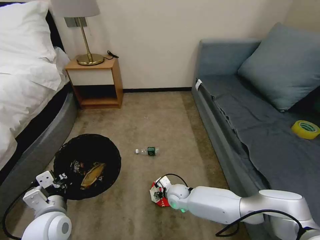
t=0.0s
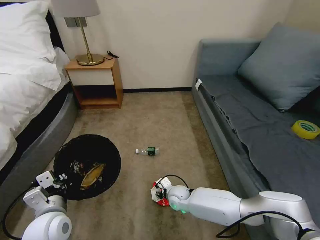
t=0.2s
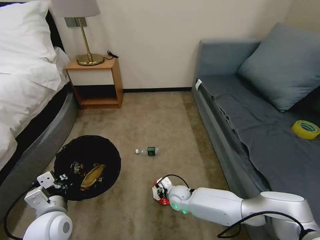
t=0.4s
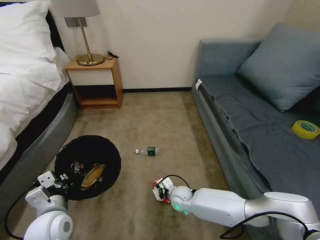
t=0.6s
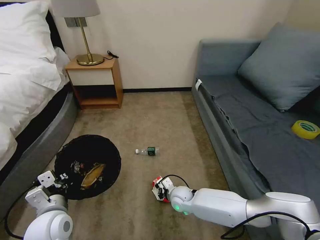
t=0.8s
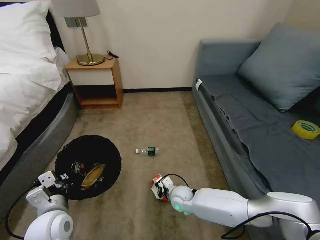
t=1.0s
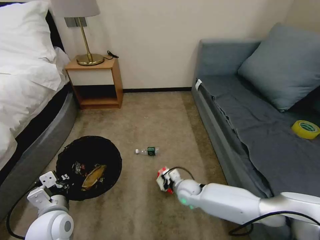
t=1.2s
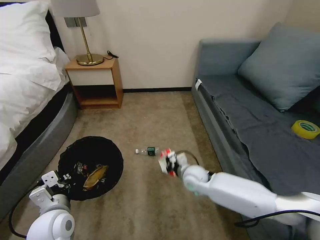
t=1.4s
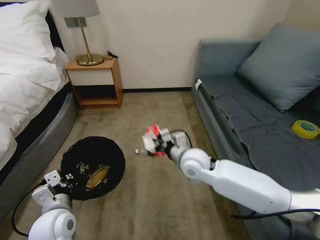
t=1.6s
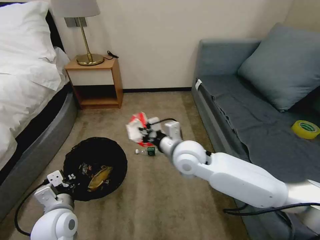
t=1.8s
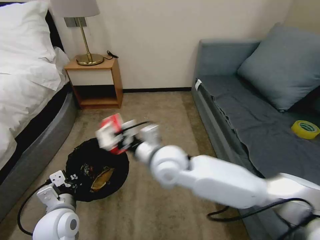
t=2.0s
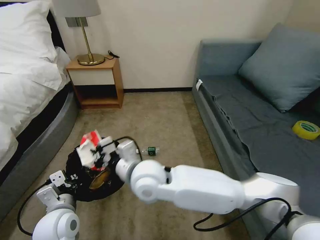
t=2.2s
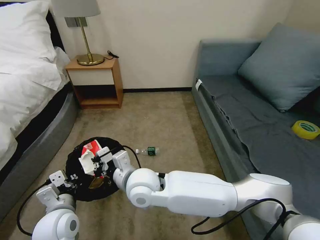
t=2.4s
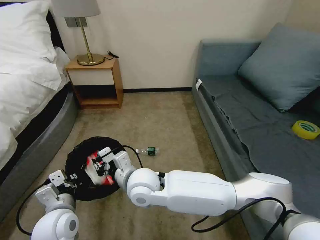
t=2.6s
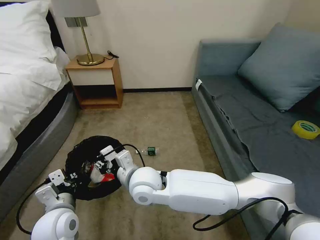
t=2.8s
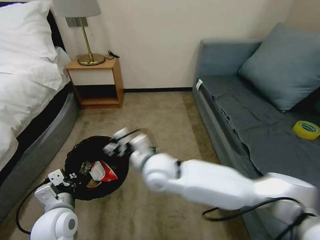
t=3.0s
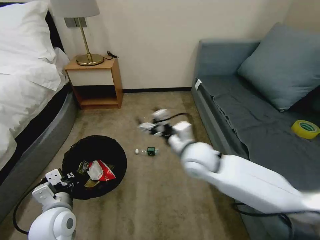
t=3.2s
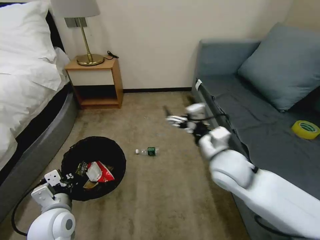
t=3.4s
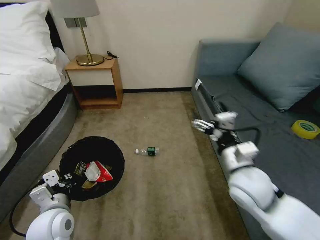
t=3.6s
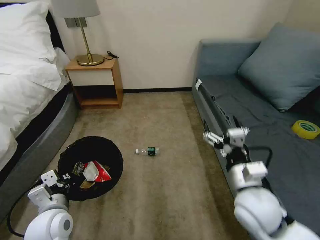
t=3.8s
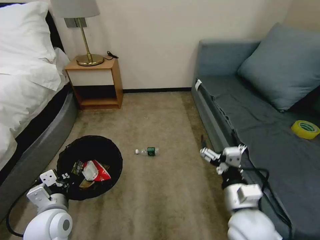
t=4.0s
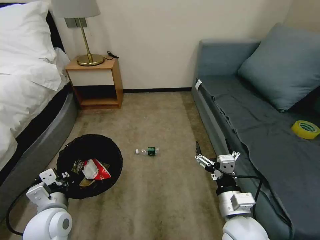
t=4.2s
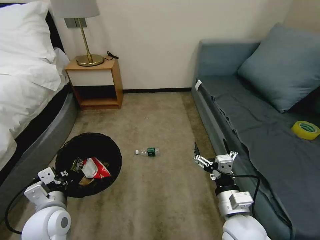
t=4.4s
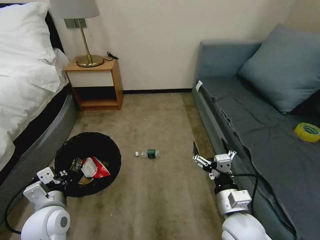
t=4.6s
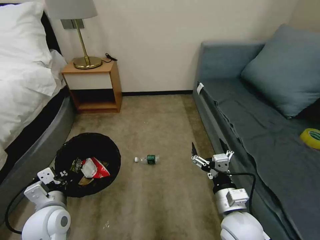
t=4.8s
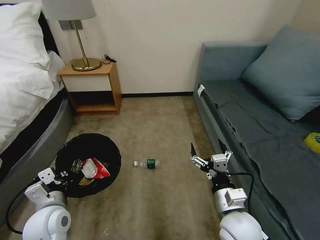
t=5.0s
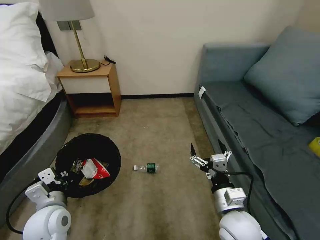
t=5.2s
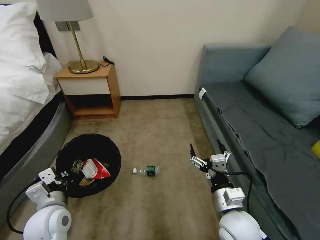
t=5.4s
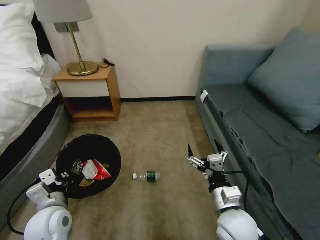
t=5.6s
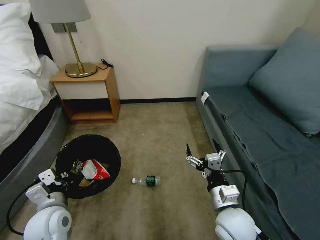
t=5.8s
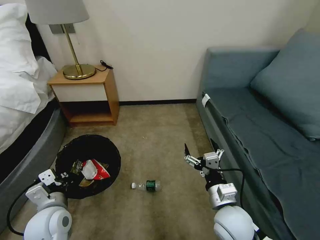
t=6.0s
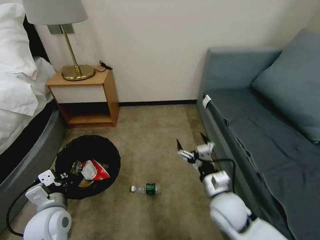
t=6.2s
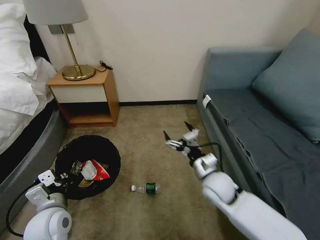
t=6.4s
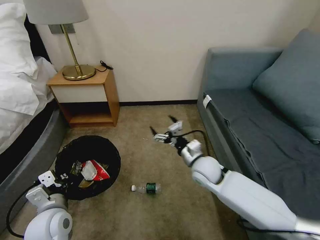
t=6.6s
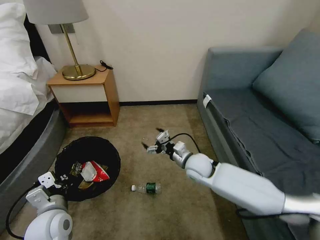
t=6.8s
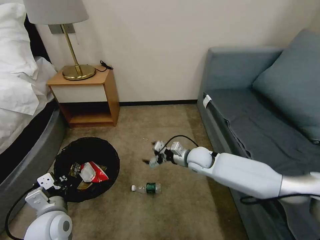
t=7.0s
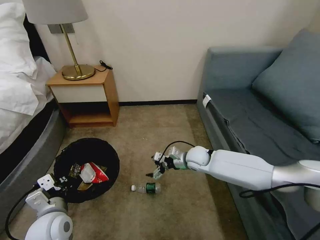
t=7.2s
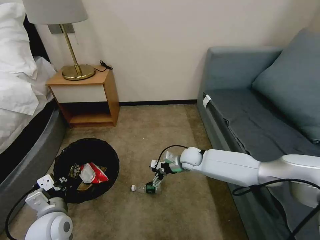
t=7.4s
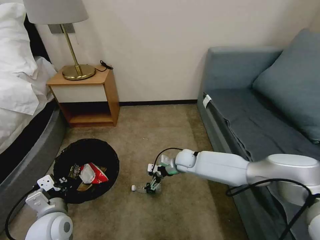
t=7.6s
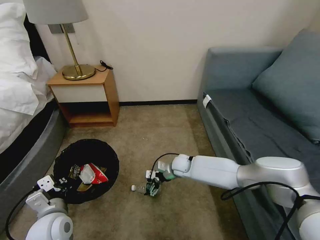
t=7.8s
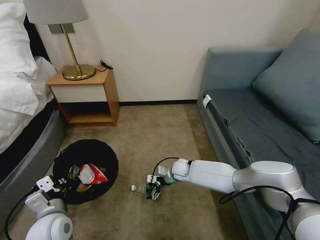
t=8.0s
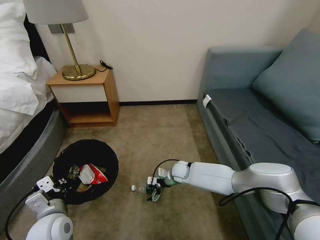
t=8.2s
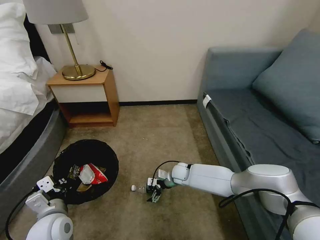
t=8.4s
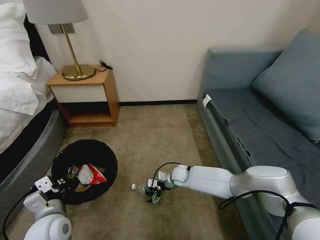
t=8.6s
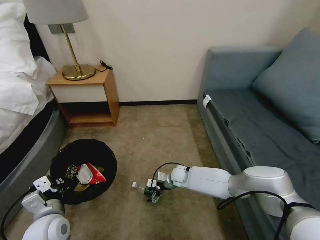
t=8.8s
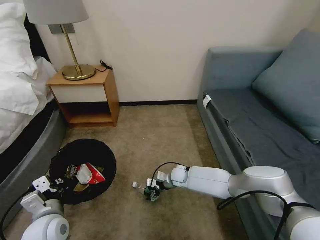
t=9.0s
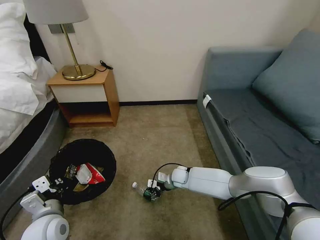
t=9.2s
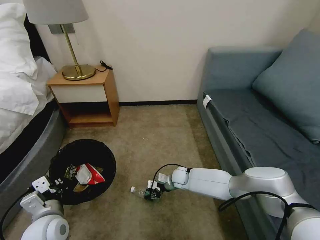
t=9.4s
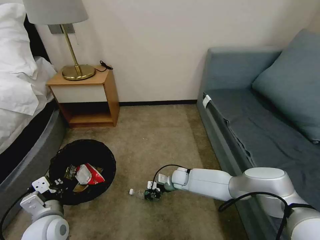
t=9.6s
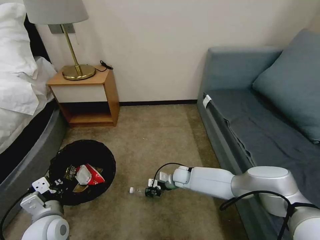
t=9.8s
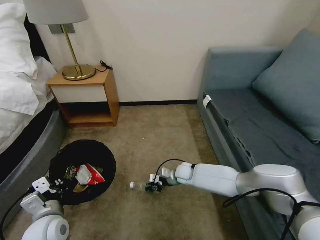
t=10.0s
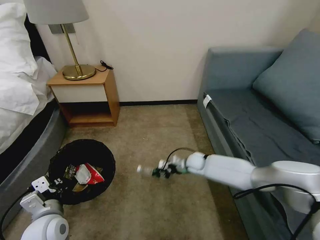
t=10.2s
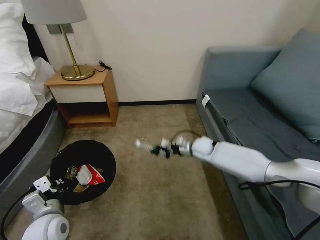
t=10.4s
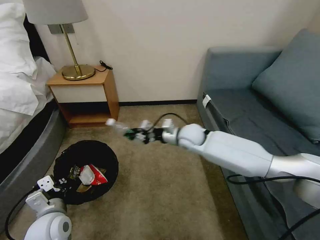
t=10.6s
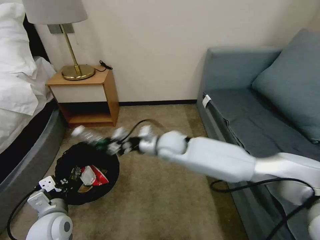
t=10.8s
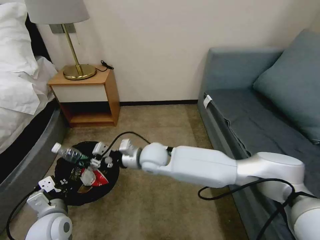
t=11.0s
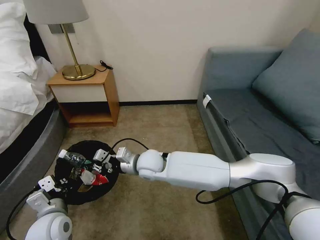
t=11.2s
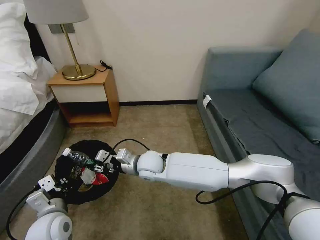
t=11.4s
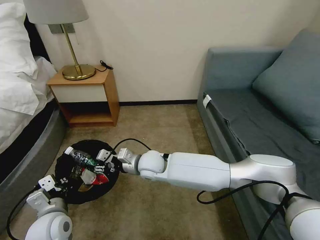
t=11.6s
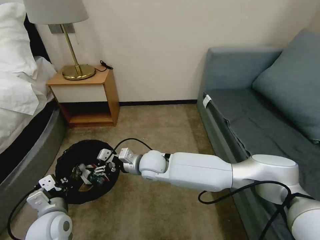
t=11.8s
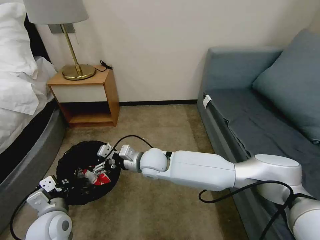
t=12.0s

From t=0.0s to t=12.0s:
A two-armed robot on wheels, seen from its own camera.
Task of the whole recording: Pick up the trash bin, then pick up the garbage on the floor and place it into the trash bin.
From t=0.0s to t=1.6s: The right gripper travels upward by approximately 25 cm, and closes up.
From t=1.6s to t=3.0s: The right gripper heads to the left and backward, covering some 15 cm, and opens its fingers.
From t=3.0s to t=4.4s: The right gripper travels to the right and backward by approximately 25 cm, and opens up.
From t=6.0s to t=7.6s: The right gripper goes about 25 cm forward.
From t=7.6s to t=9.0s: The right gripper goes some 10 cm downward.
From t=9.0s to t=10.4s: The right gripper travels upward, to the right and forward by some 15 cm, and closes its fingers.
From t=10.4s to t=12.0s: The right gripper is displaced to the left and backward by some 25 cm, and opens its fingers.

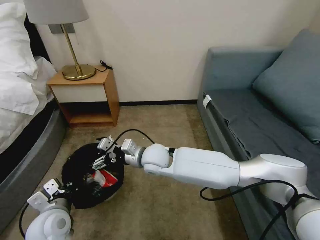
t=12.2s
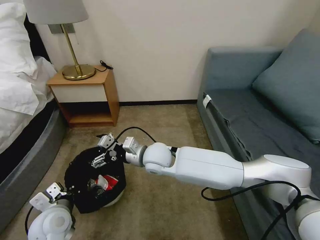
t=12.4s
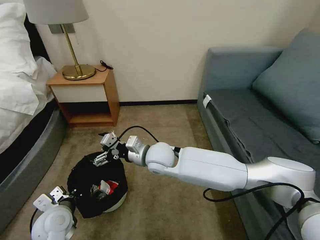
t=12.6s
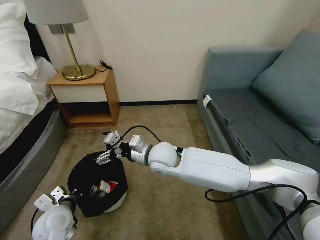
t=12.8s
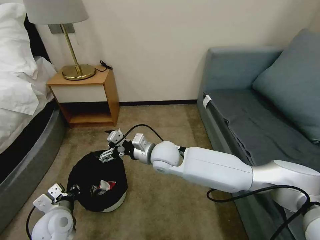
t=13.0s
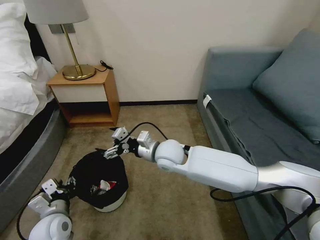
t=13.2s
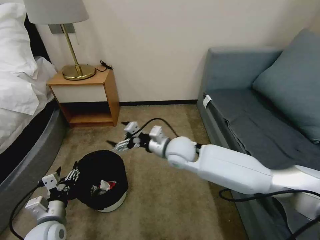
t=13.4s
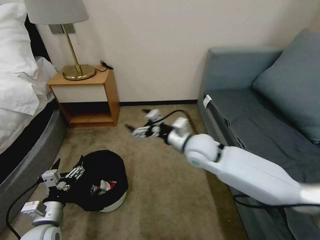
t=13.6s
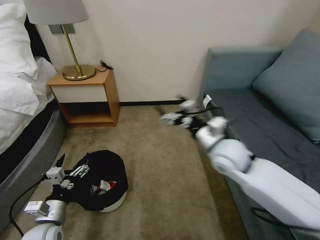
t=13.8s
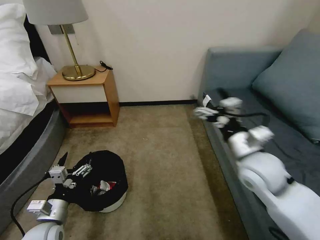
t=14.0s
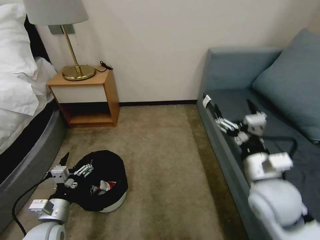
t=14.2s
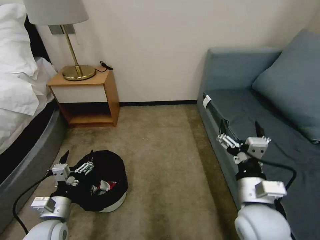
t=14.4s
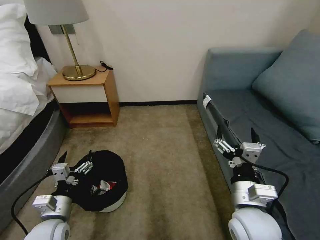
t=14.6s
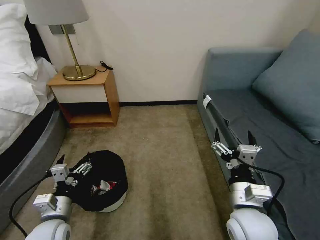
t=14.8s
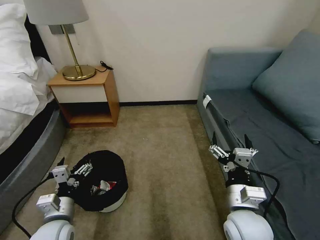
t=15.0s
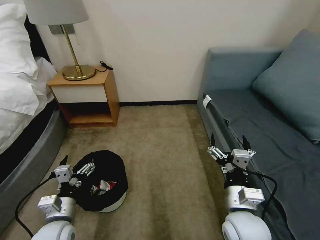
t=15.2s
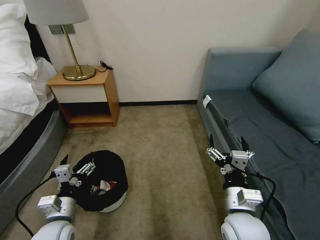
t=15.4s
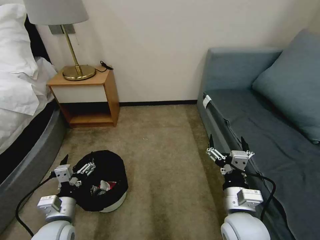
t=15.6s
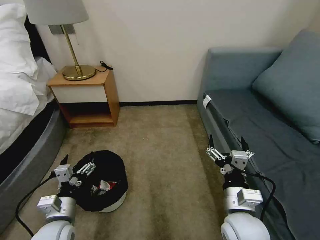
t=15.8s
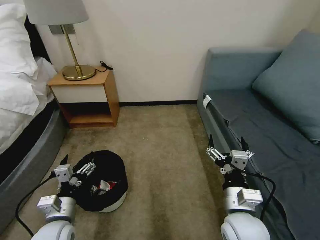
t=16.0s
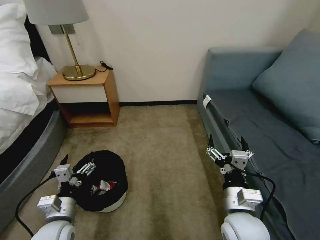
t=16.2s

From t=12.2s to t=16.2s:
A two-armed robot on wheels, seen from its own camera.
Task of the whole recording: Pick up the trash bin, then pick up the garbage on the floor and place it into the trash bin.
From t=12.2s to t=13.6s: The left gripper ends up some 5 cm from where it was, and opens. Meanwhile the right gripper shifts approximately 15 cm to the right.
From t=13.6s to t=14.8s: The right gripper shifts some 20 cm backward and to the right.
From t=14.8s to t=16.2s: The grippers move only a little.

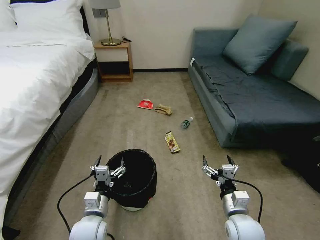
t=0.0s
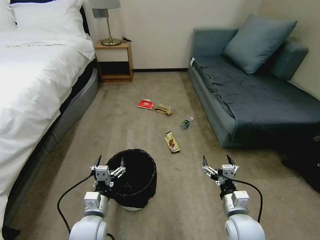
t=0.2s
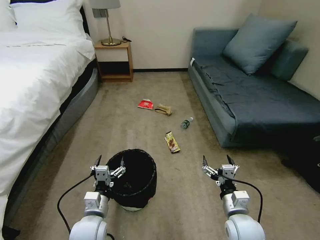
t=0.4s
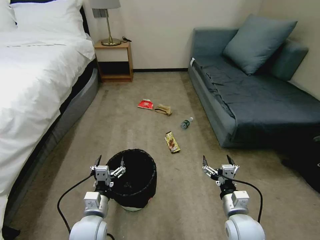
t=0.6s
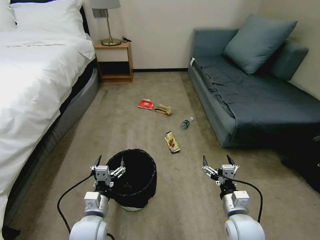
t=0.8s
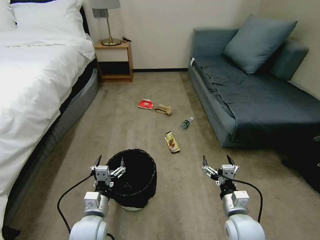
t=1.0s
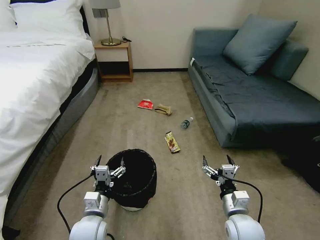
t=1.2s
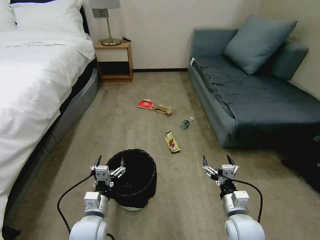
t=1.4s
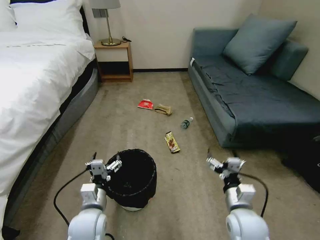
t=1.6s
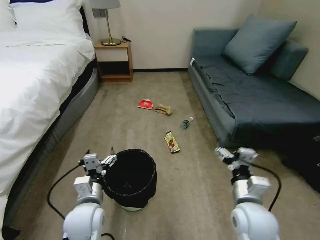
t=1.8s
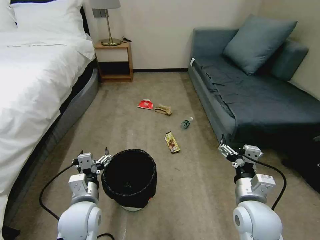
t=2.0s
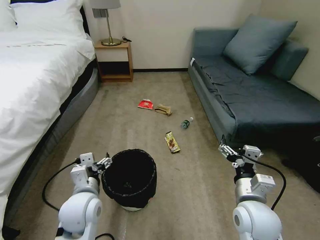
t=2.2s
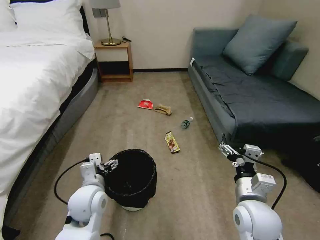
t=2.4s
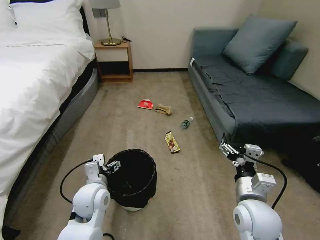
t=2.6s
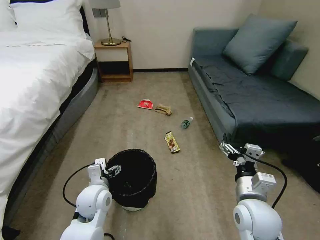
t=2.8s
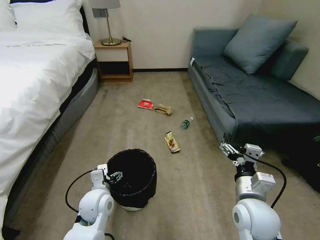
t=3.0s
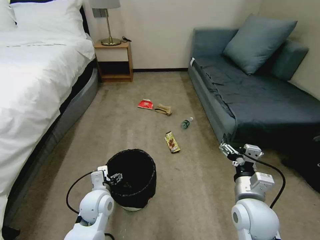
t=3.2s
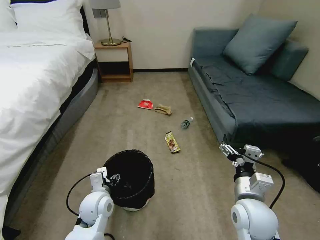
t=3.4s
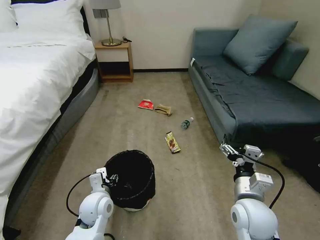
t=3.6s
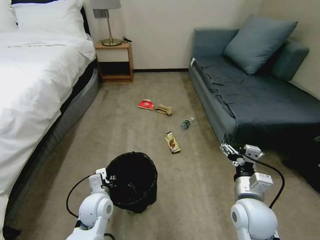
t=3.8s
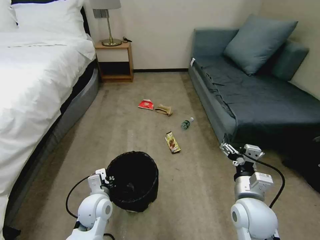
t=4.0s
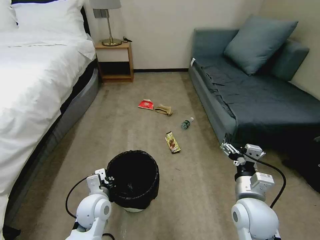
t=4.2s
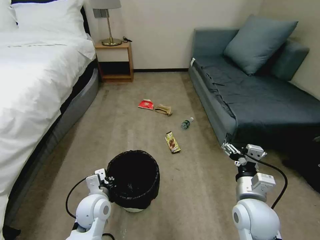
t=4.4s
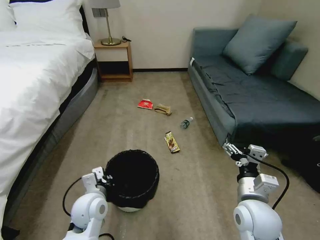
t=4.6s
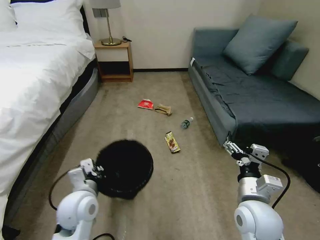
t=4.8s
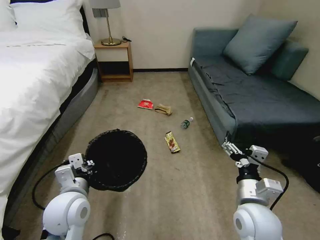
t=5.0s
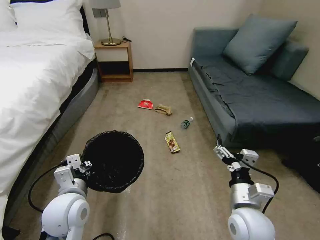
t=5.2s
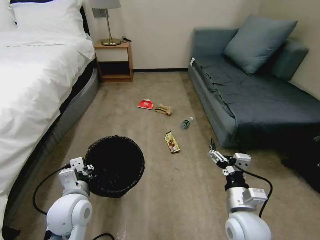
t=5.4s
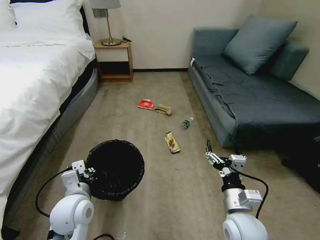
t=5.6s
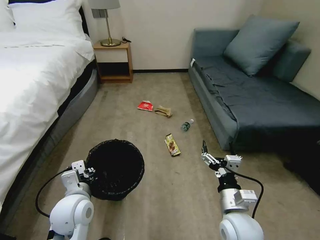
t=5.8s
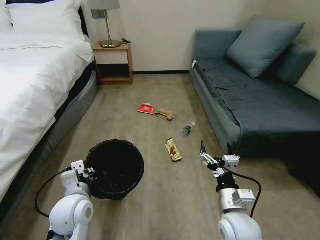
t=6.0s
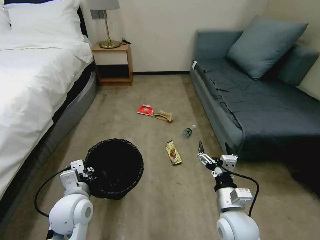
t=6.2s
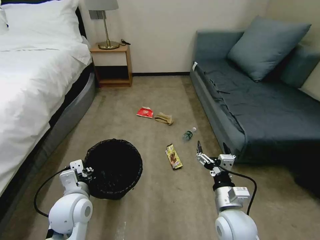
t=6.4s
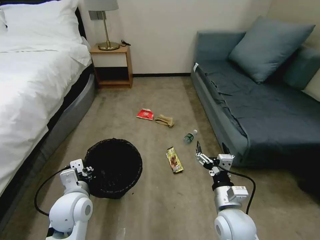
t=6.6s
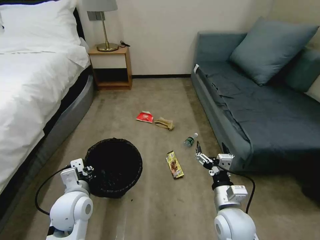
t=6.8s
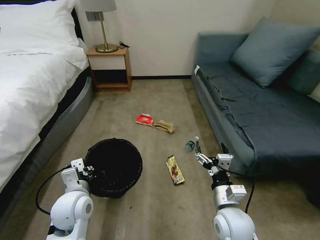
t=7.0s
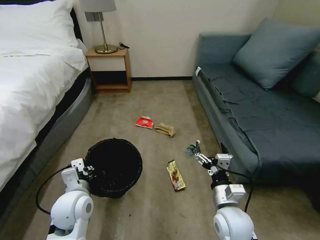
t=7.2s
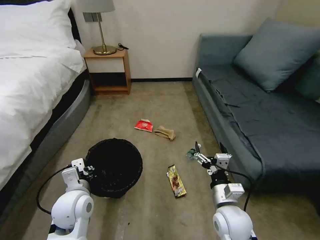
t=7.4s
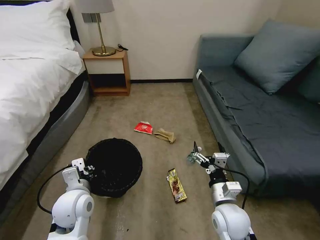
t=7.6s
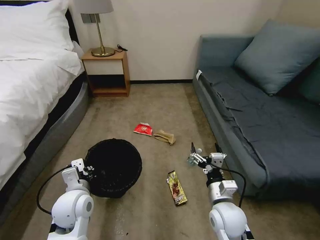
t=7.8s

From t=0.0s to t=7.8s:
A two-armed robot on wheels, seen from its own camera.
Task of the whole recording: Pick up the trash bin, then pick up the garbage on the floor and place it into the trash bin.
From t=1.6s to t=3.2s: The right gripper is displaced upward by approximately 5 cm; the left gripper moves forward, approximately 5 cm, and goes upward and returns, some 5 cm each way.
From t=3.2s to t=4.6s: The left gripper closes.
From t=4.6s to t=6.2s: The right gripper moves approximately 5 cm.
